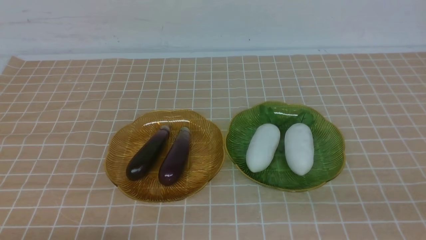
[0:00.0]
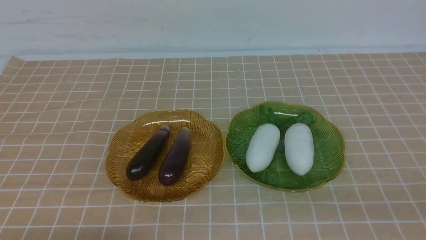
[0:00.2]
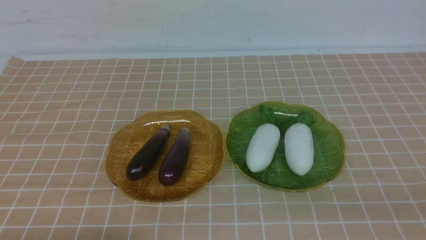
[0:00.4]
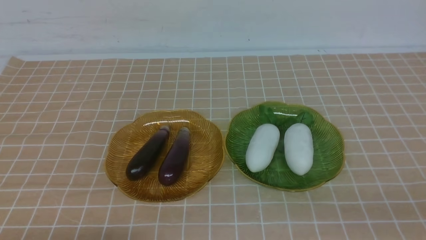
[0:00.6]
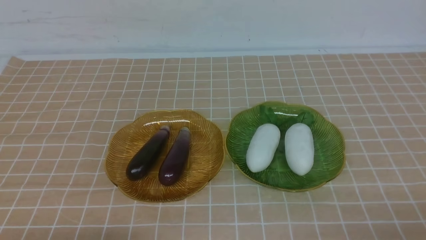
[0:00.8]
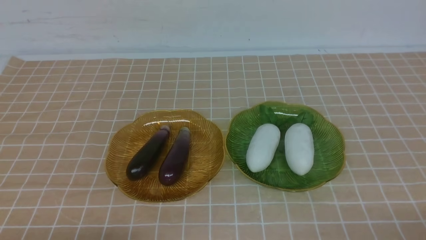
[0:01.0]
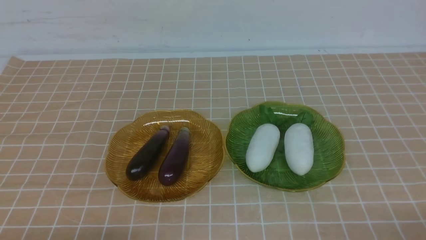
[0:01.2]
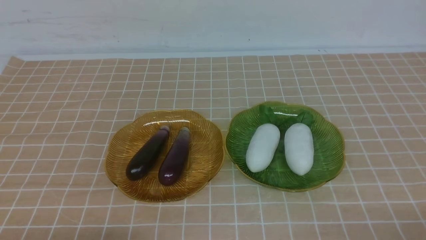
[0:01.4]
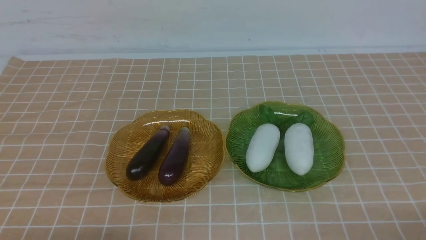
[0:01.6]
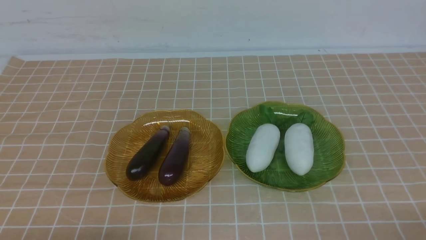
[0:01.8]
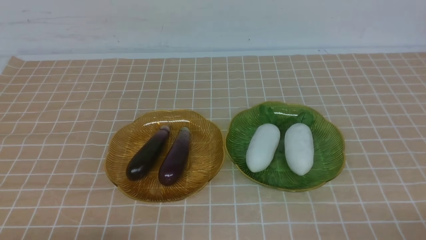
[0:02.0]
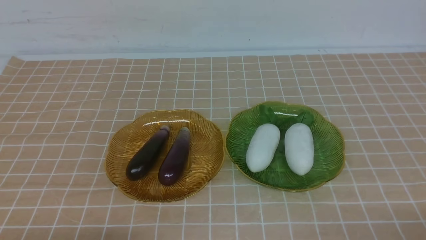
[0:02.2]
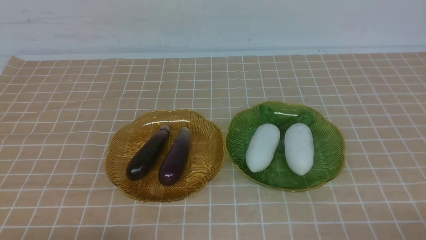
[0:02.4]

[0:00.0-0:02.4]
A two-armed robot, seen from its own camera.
0:01.2 to 0:02.4: Both grippers stay about where they are.
